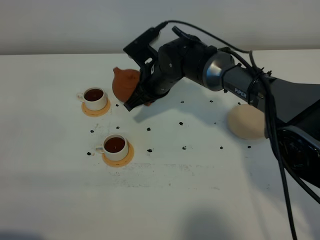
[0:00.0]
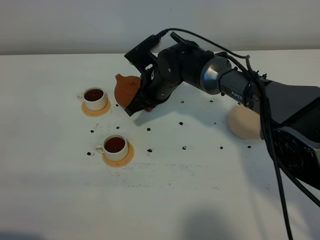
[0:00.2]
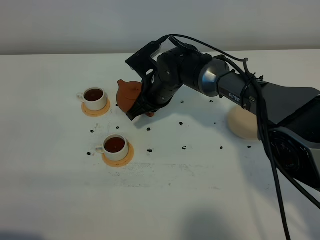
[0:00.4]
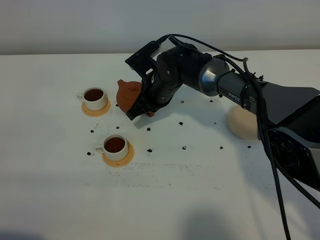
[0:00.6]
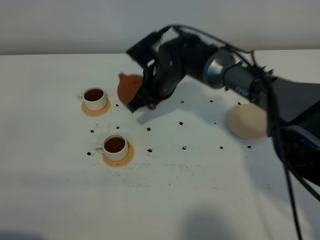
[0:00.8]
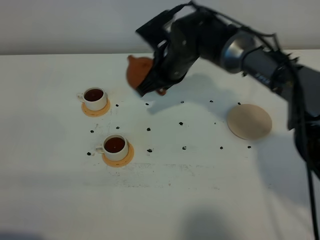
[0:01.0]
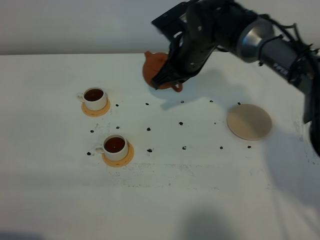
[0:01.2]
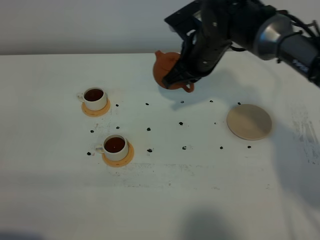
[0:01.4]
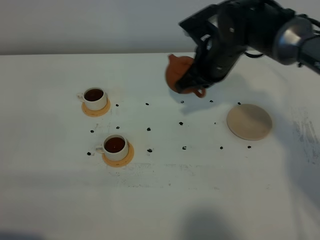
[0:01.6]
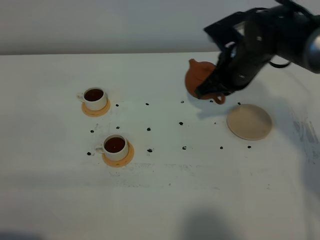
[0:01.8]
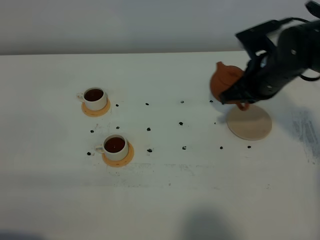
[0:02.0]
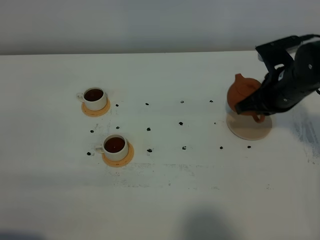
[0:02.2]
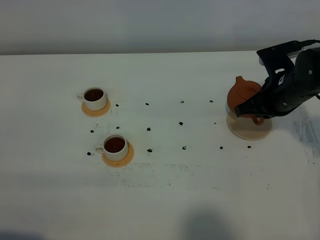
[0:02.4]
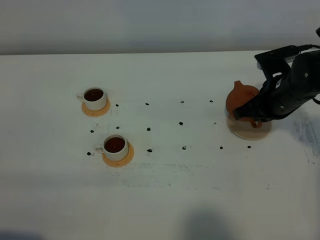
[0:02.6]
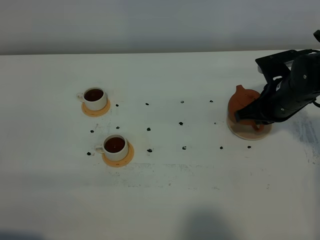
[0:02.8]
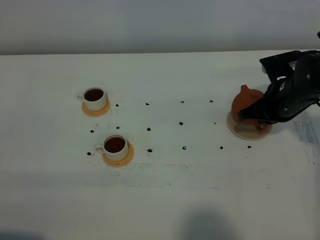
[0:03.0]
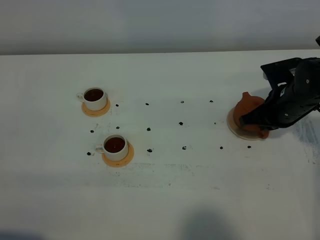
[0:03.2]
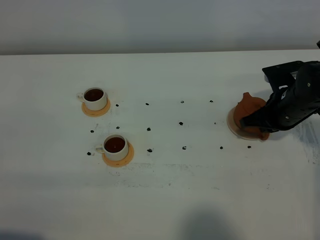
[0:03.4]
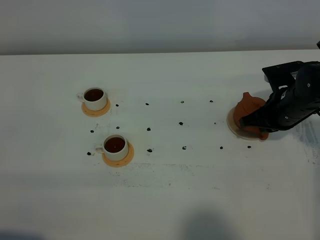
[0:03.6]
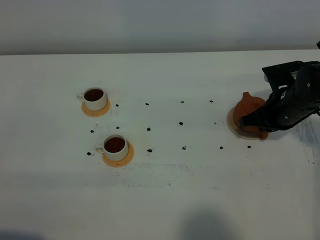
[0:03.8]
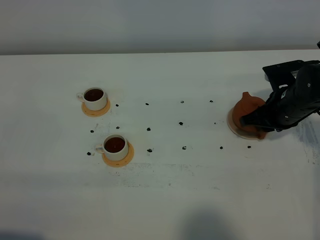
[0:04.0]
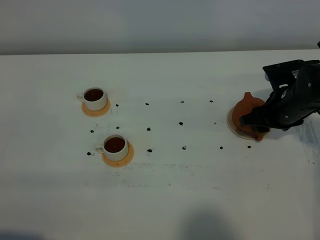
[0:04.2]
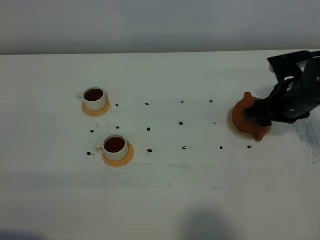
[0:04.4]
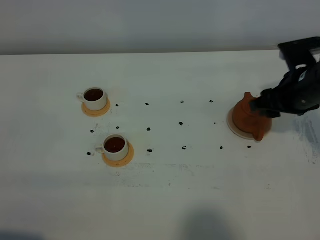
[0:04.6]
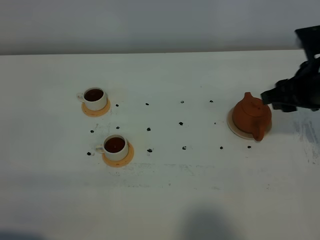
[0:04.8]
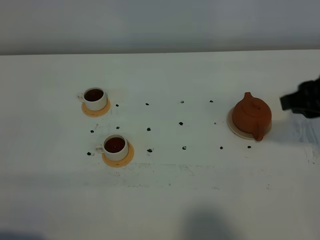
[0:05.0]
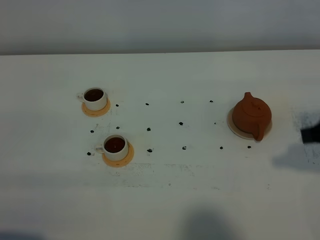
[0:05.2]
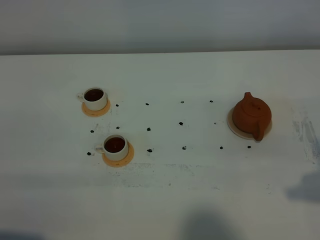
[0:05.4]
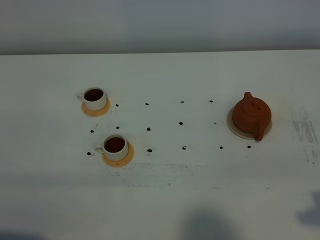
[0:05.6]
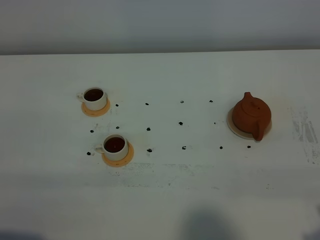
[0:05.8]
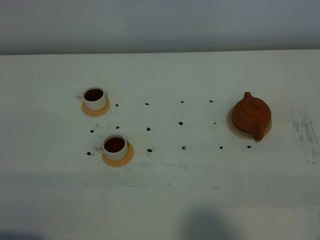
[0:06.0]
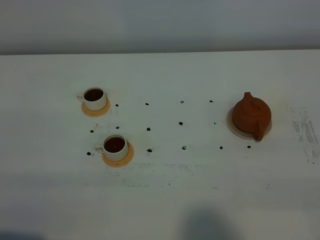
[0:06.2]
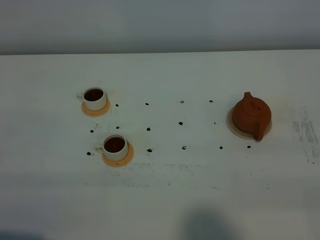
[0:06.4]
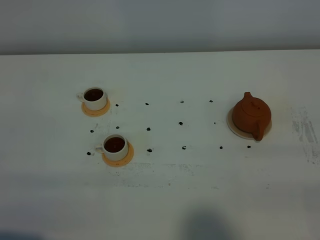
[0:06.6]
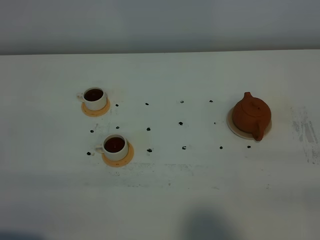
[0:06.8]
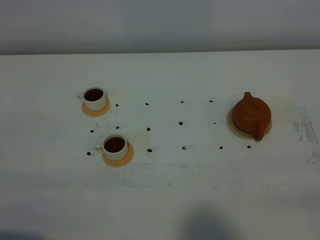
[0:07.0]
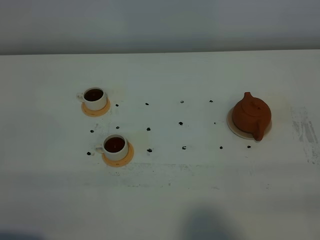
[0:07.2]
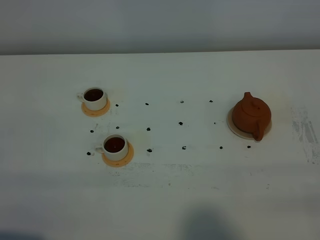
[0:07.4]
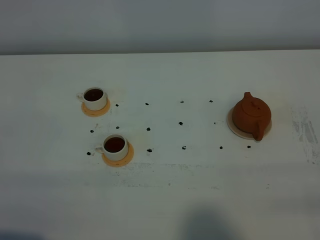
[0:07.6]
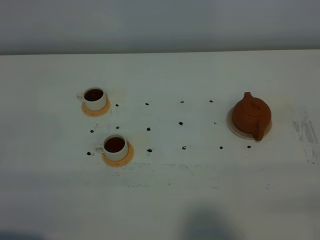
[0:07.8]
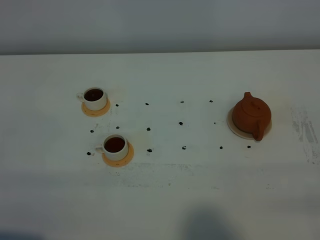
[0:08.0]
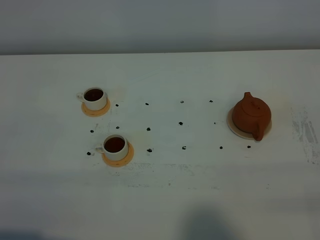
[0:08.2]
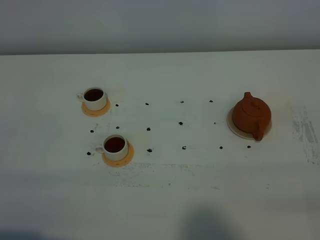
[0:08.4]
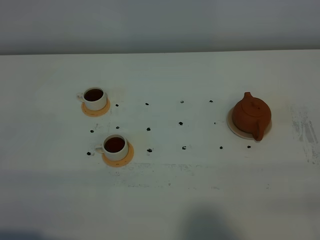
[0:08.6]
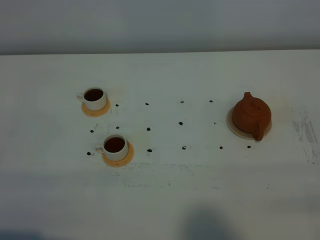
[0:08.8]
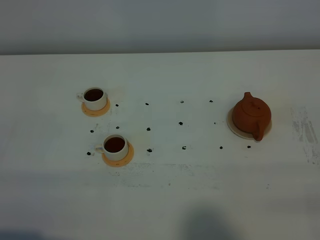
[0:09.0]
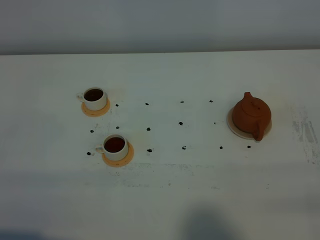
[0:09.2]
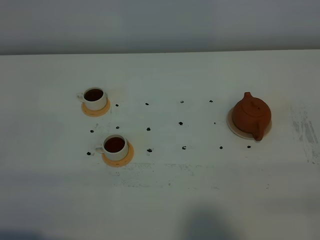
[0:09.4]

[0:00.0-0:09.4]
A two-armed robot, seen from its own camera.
Task of the whole recording: grasp the brown teapot and pour the tea into the two white teacups one by one, put the brown teapot back in its original place.
0:00.0 to 0:01.6: The right gripper heads to the right and upward, covering about 15 cm.
0:01.6 to 0:03.2: The right gripper shifts some 15 cm to the right and downward.
0:03.2 to 0:04.8: The right gripper heads upward and backward, covering approximately 15 cm, and opens its fingers.
0:04.8 to 0:06.2: The right gripper moves backward, about 25 cm, and closes up.
0:07.8 to 0:09.4: Both grippers stay put.

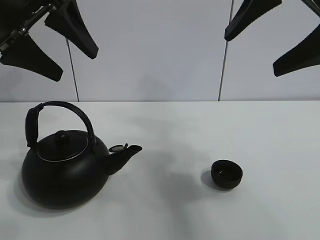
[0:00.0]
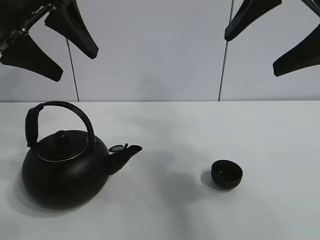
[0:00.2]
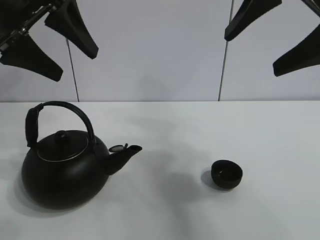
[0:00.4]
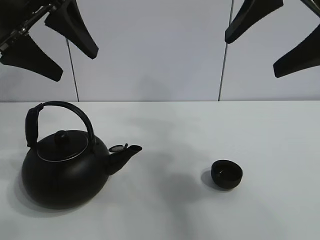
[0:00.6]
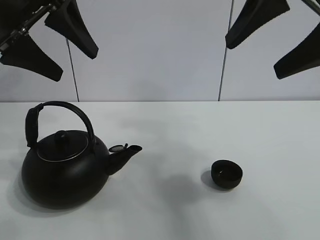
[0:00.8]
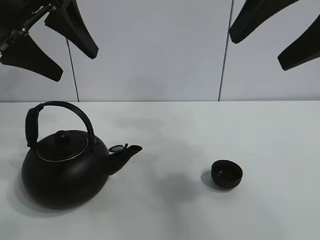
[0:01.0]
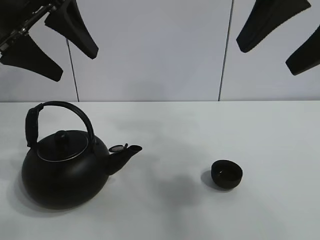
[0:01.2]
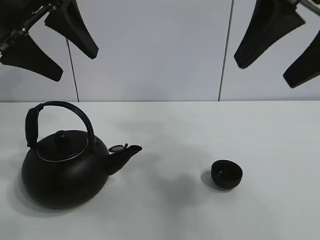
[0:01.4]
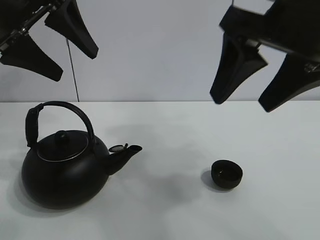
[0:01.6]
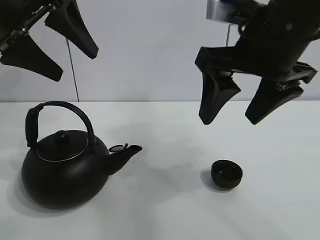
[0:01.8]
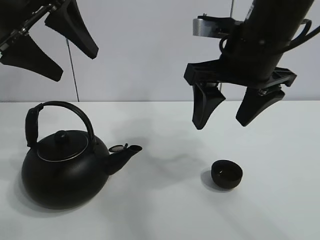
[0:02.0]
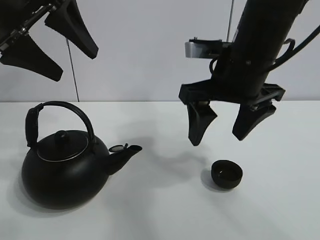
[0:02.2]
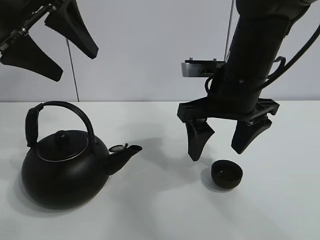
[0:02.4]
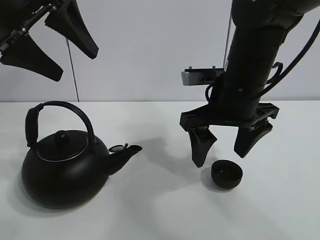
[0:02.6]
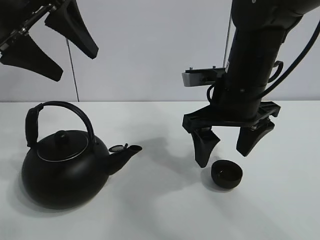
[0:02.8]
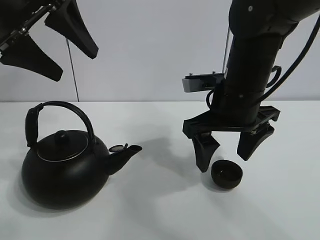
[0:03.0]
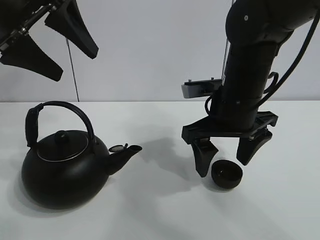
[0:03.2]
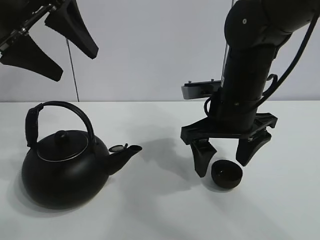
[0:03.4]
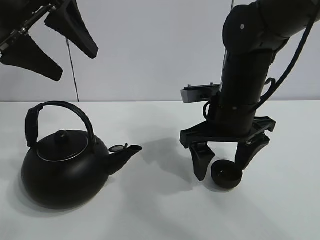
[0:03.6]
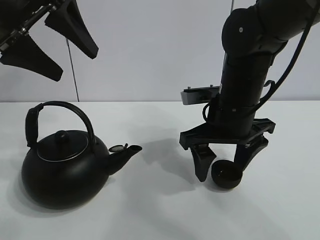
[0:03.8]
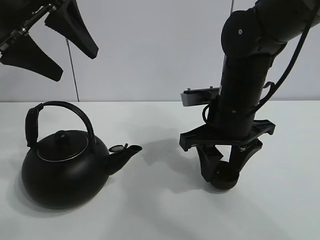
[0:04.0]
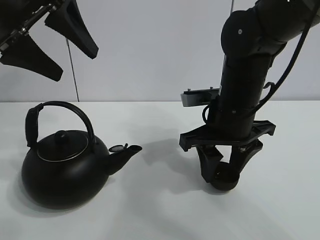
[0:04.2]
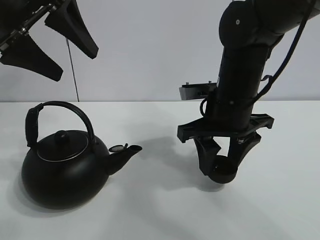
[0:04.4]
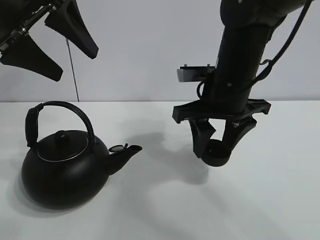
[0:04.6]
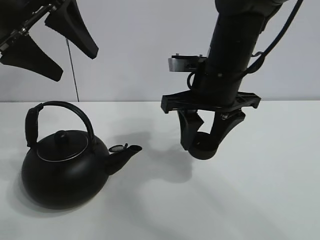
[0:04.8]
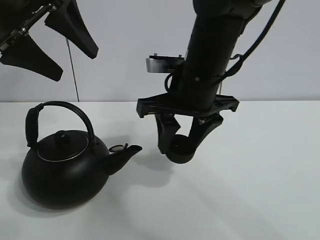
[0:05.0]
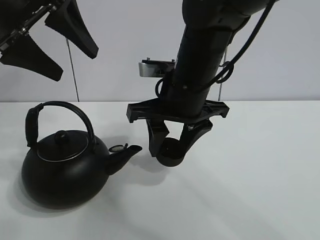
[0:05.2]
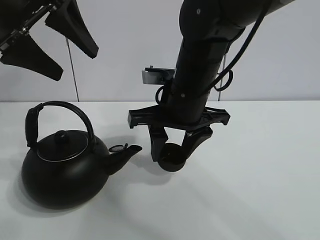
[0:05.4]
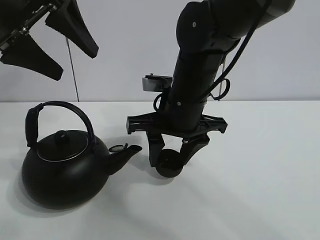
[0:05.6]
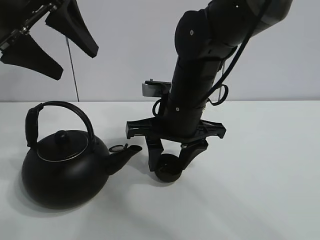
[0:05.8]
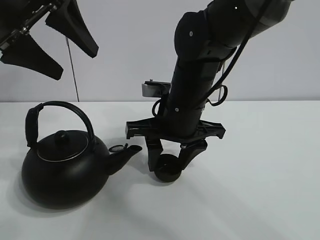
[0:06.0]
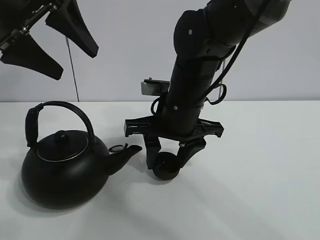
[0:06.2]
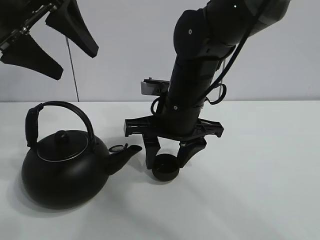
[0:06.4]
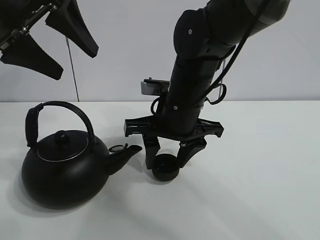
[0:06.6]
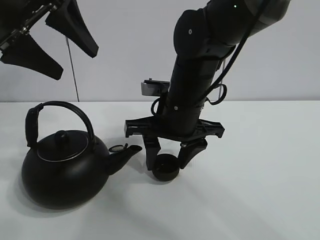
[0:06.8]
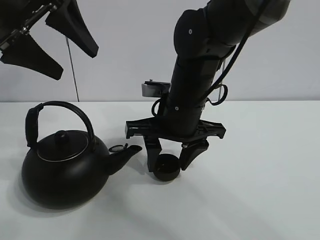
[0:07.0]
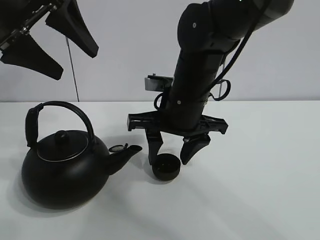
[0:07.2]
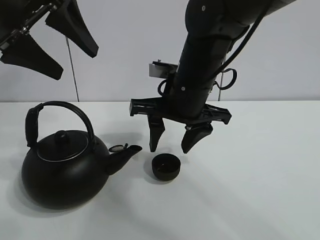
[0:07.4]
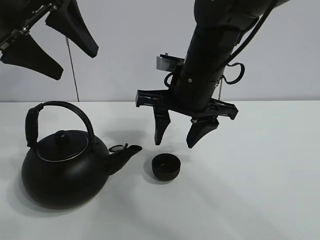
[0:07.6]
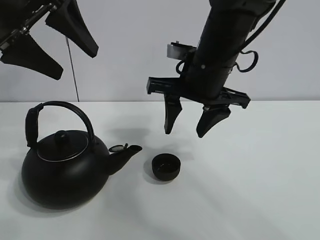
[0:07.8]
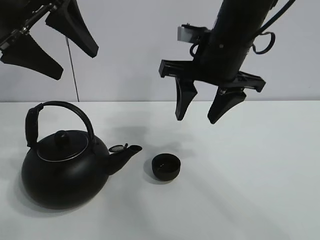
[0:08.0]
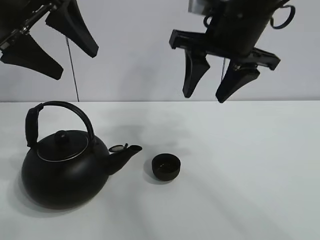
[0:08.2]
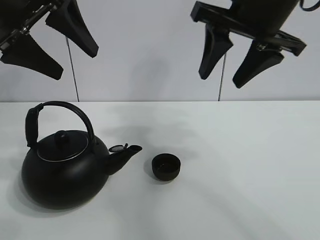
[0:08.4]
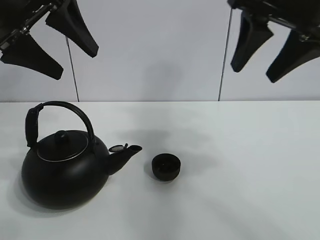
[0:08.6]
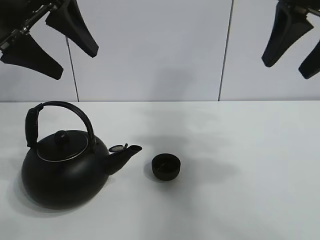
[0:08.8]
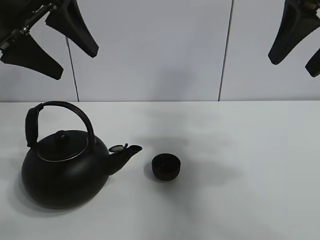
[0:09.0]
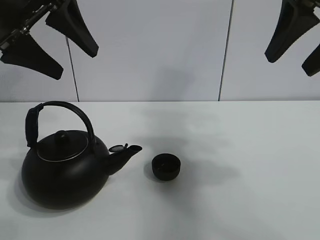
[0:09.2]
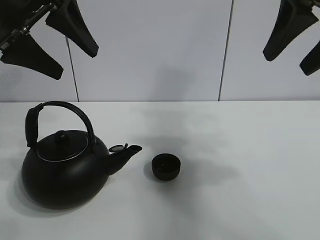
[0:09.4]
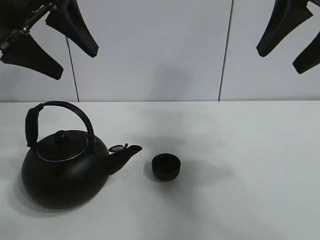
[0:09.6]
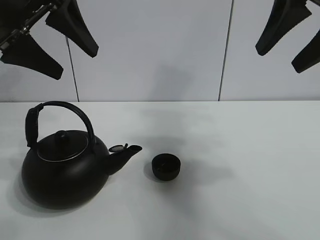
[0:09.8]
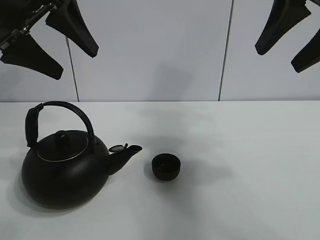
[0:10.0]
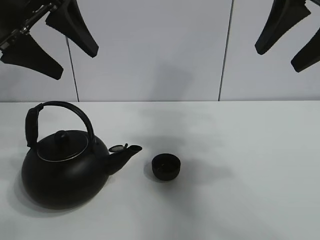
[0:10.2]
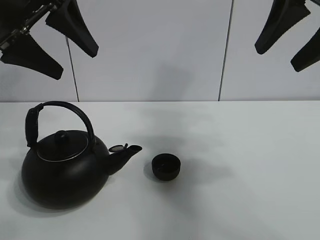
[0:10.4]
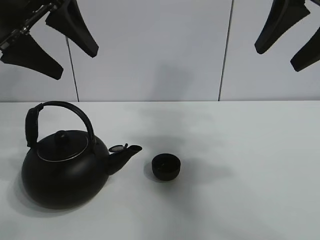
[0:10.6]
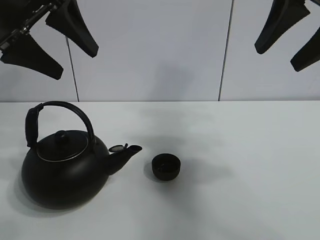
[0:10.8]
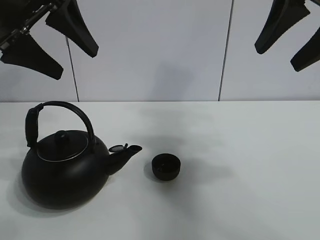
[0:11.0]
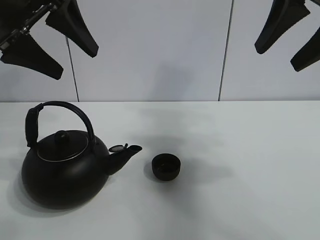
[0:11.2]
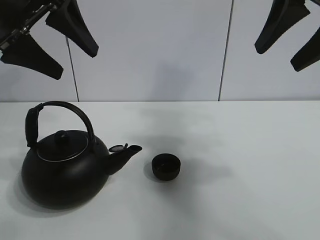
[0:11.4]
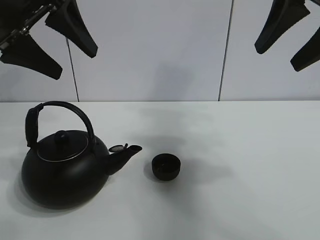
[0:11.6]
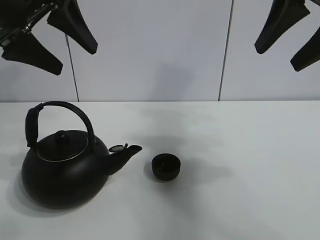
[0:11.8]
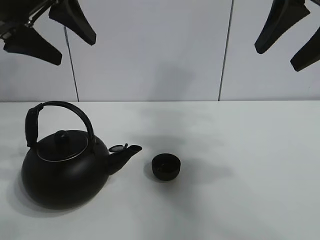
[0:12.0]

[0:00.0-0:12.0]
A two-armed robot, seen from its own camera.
Task of the whole recording: pour tea into the teacup.
Step, 0:00.0 to 0:04.2: Pick up the teacup with the right gripper.
Step, 0:04.4 to 0:07.0: Place the teacup in the center of view with the right gripper.
0:01.6 to 0:03.0: The right gripper shifts roughly 15 cm downward and forward.
0:03.0 to 0:04.4: The right gripper closes up.
0:04.4 to 0:06.0: The right gripper moves to the left, roughly 5 cm.
0:06.0 to 0:07.6: The grippers stay close to where they were, moving slightly.
0:07.6 to 0:09.0: The right gripper heads to the right, upward and backward, covering about 25 cm.
0:09.0 to 0:12.0: The grippers move only a little.

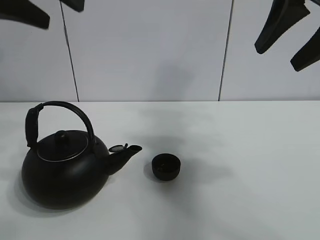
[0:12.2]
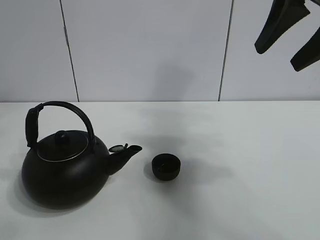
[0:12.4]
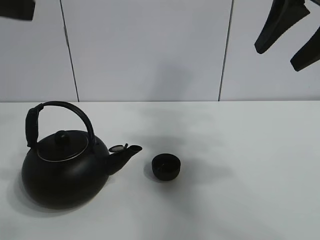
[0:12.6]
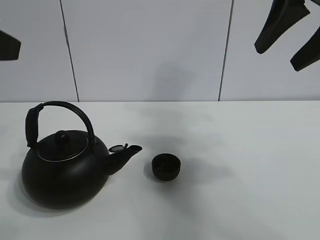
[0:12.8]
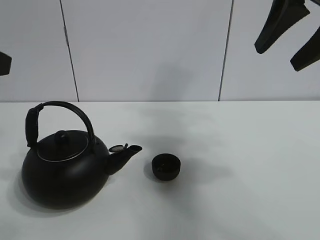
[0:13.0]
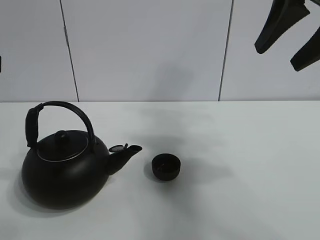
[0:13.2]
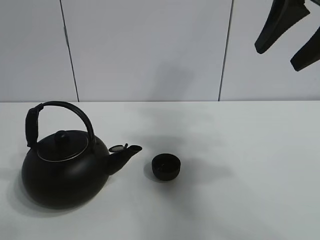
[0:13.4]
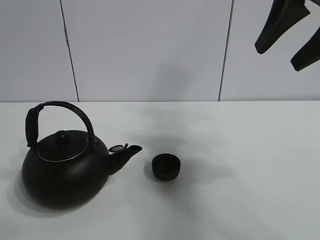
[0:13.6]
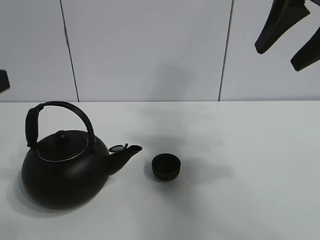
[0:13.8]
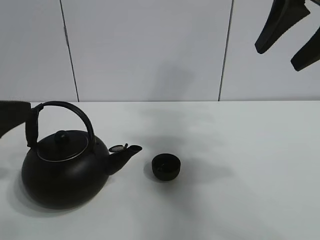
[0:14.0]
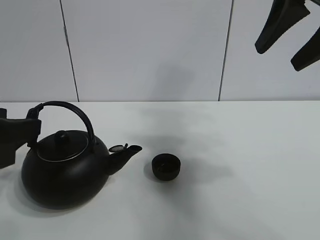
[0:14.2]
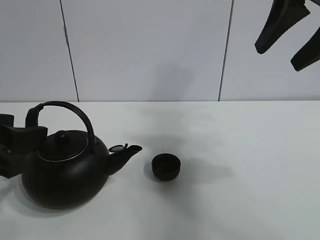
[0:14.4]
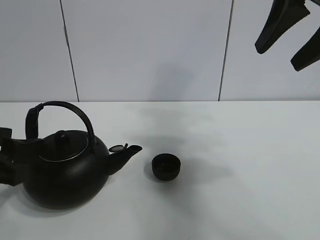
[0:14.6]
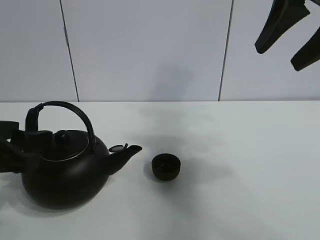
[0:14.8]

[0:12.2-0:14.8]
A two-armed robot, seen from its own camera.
Task of the whole recording: pour tea into the teacup.
0:12.2 to 0:13.4: The left gripper is displaced backward, downward and to the left by about 15 cm.
0:13.4 to 0:14.8: The left gripper heads downward, covering roughly 10 cm.
